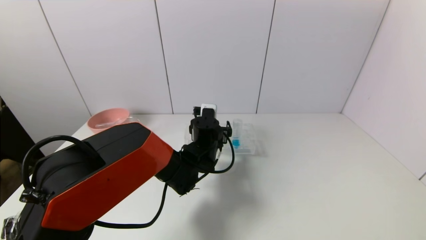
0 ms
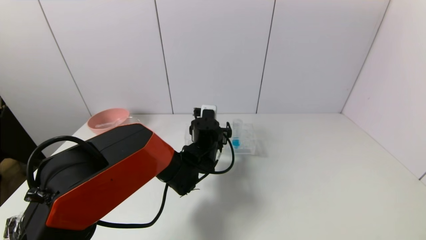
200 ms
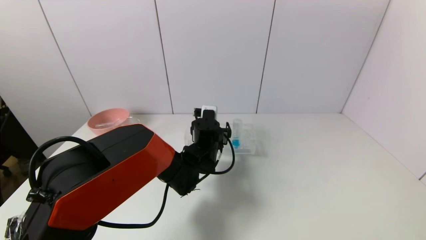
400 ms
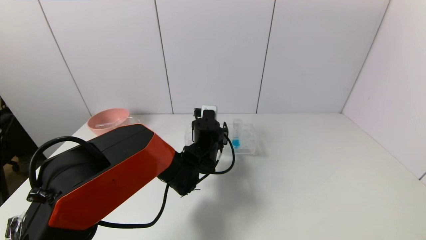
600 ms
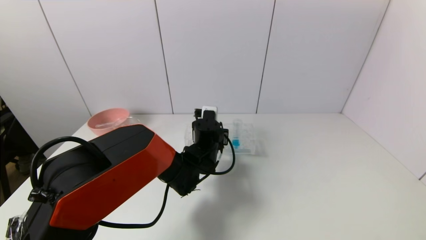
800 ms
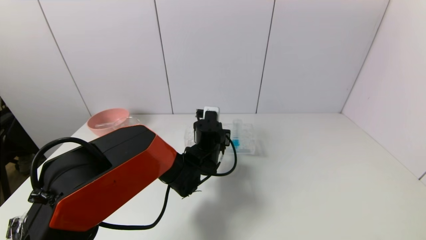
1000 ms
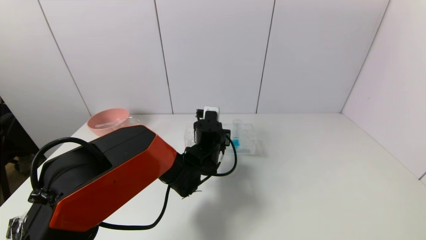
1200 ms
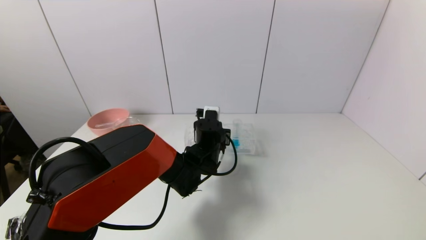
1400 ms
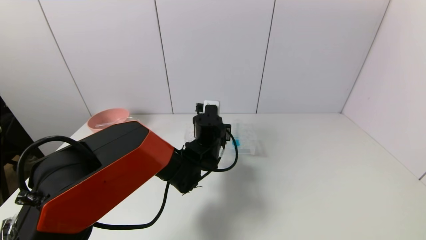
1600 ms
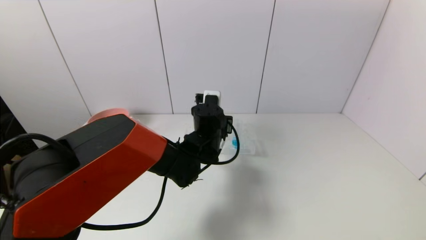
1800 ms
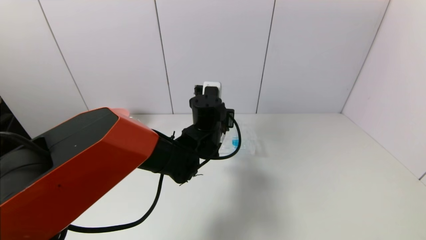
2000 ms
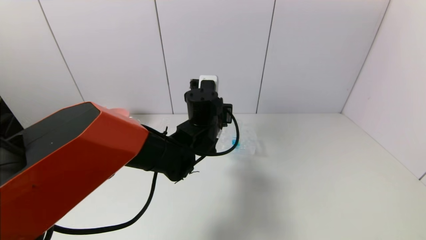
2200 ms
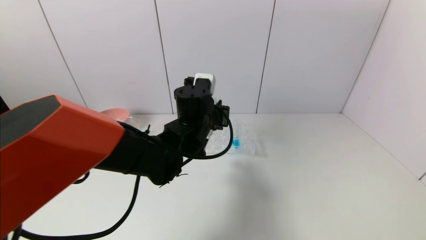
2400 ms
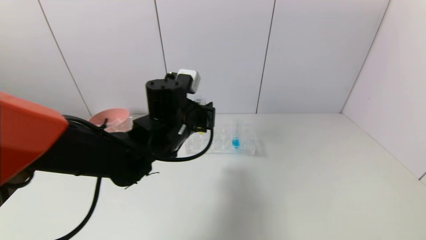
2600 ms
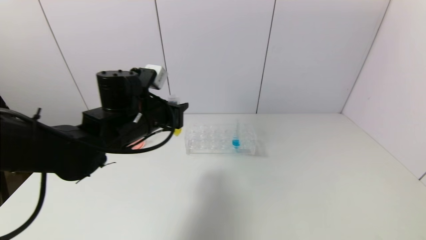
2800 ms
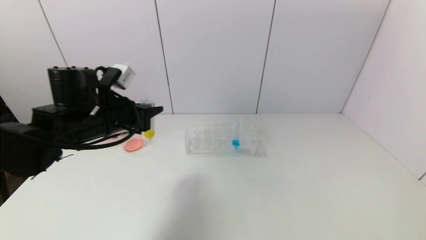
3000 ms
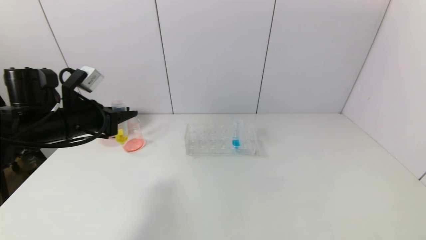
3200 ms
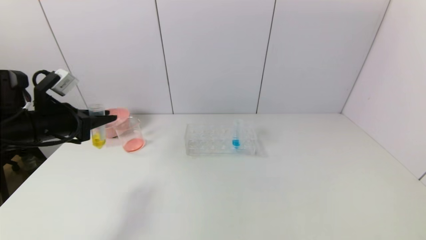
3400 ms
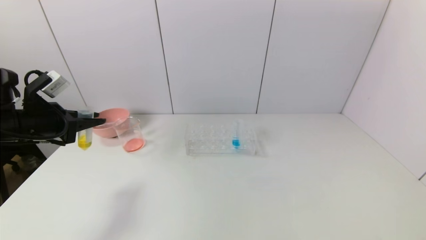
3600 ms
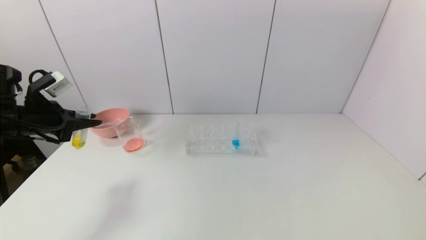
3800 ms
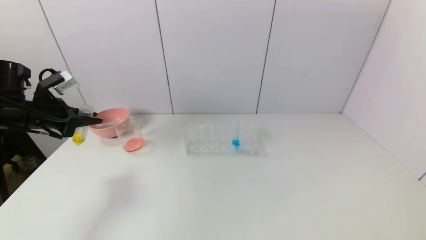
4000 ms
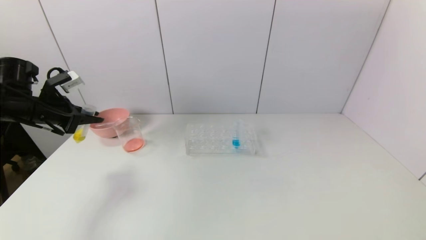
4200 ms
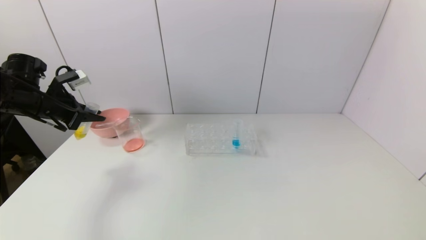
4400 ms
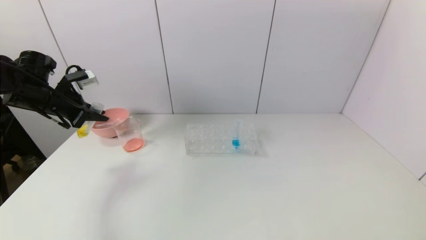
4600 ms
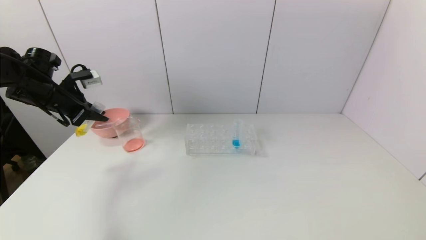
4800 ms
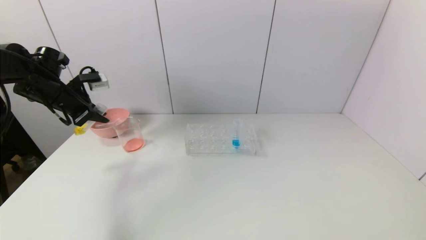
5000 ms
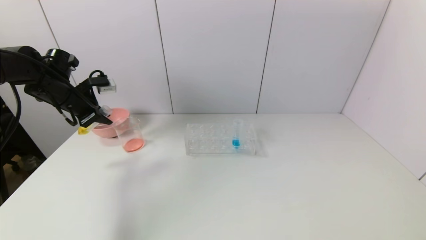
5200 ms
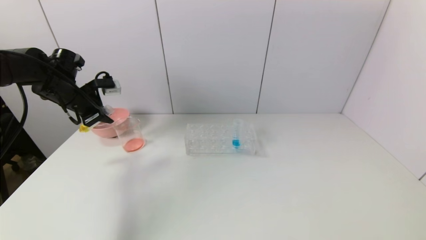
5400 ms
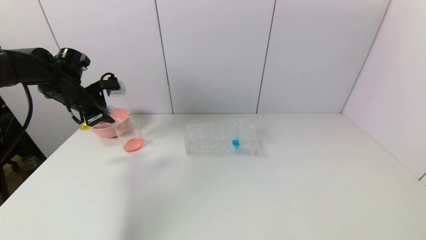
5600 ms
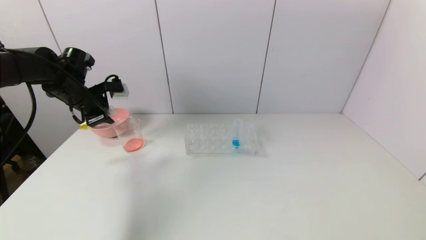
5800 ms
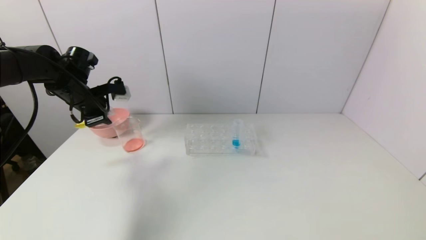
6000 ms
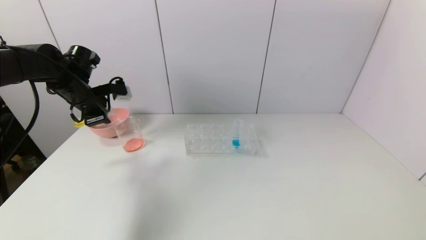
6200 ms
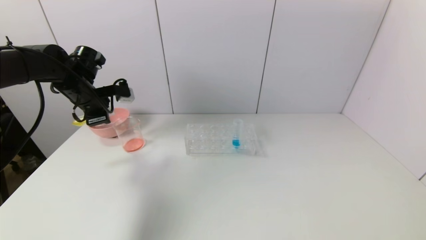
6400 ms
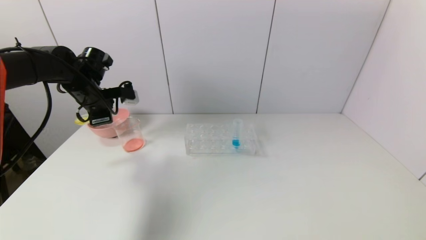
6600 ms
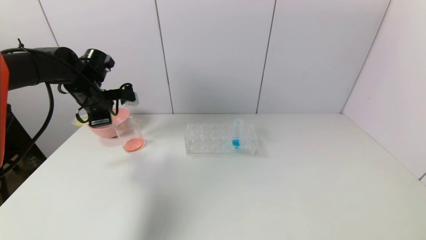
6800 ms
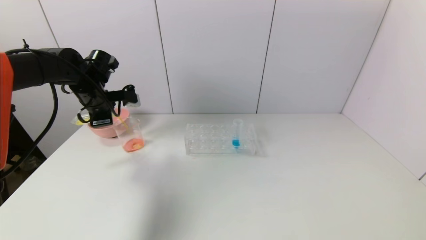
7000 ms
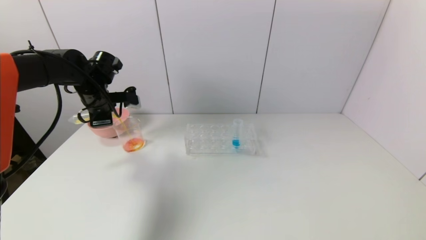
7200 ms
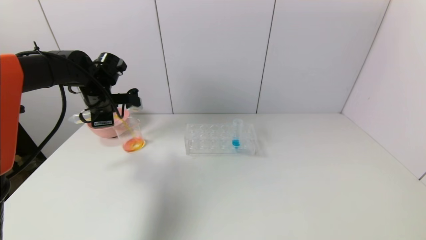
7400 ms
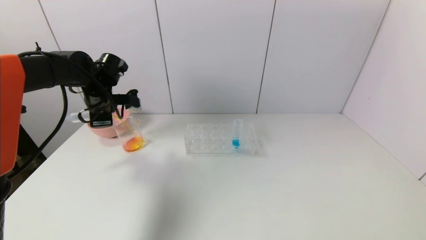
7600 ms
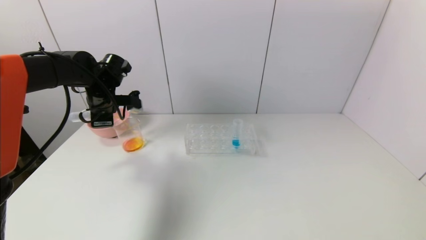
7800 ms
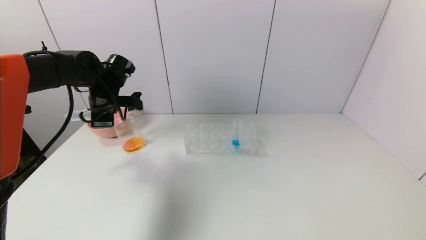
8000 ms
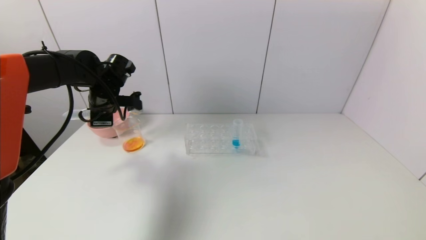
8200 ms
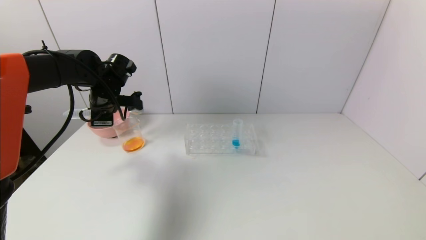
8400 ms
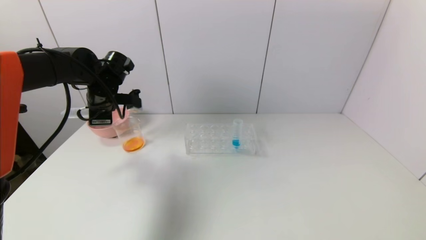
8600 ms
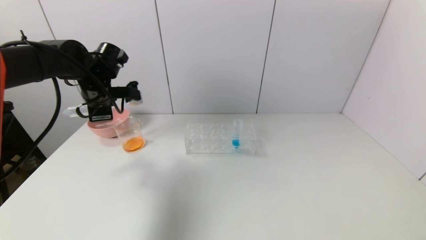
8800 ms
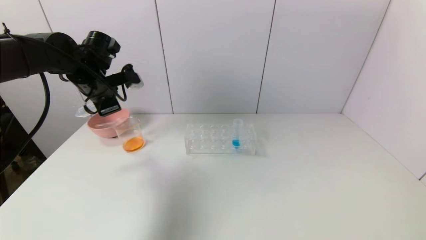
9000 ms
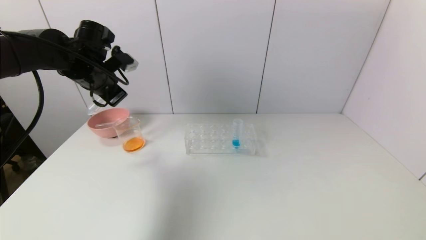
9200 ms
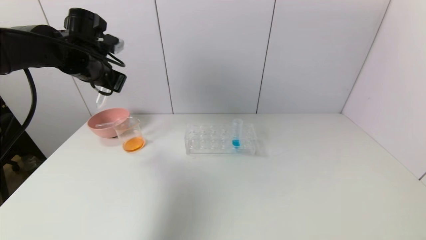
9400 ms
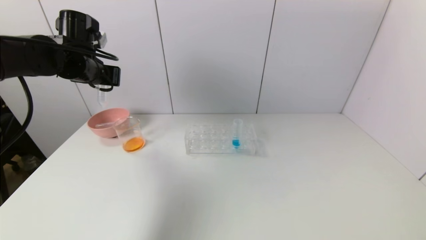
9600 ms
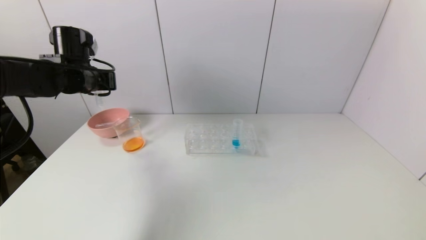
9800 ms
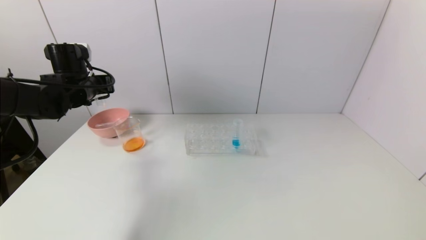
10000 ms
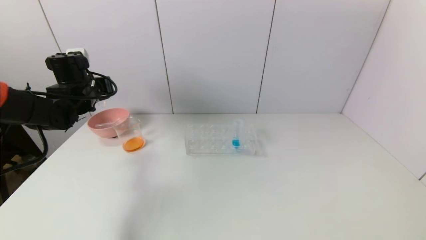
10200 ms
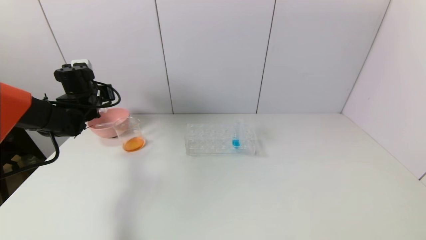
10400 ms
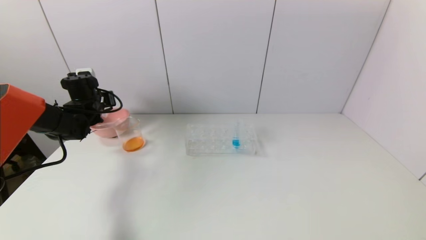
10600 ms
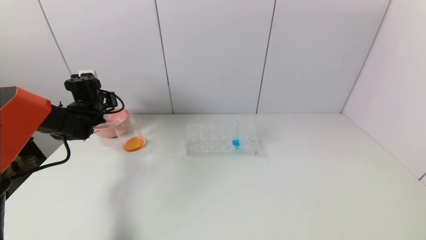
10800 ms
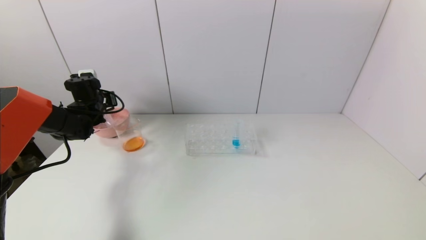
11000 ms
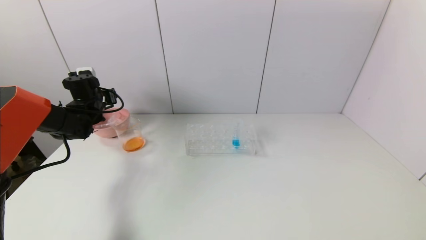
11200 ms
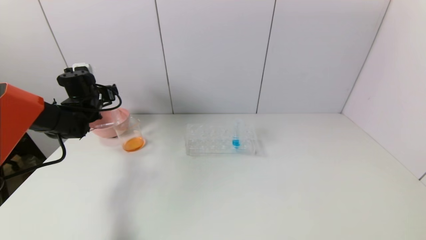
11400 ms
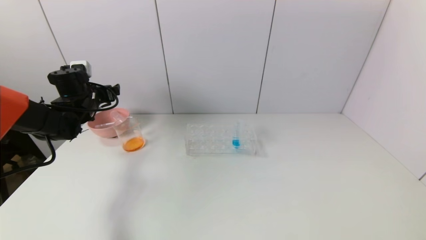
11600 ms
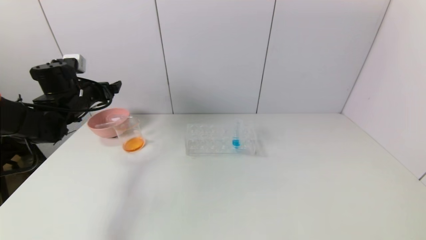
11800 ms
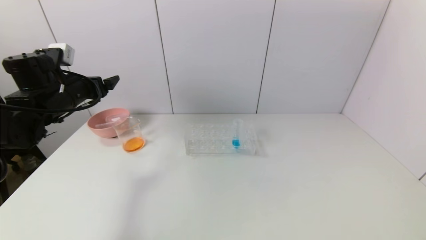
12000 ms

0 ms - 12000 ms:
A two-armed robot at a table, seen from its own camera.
Task of the whole recording: pick up the test tube with yellow pigment and the test tube with red pigment by grippers and pour them into the beaker.
Step, 1200 ms - 8200 ms: Pour the yellow reagent into the graduated cylinder with the left gripper.
Step, 8400 ms - 11200 ms: Place the test tube into the pink bowl with the left gripper.
0 ms - 1600 ms: The left gripper closes up.
1600 ms - 3000 ms: The left gripper moves to the left and upward, roughly 25 cm.
3000 ms - 4400 ms: The left gripper moves to the left, approximately 15 cm.
4400 ms - 6000 ms: The left gripper is displaced to the right by approximately 5 cm.
6000 ms - 7600 ms: The left gripper is displaced to the right by approximately 5 cm.
7600 ms - 9000 ms: The left gripper changes place by approximately 5 cm.
9000 ms - 10400 ms: The left gripper goes about 10 cm downward and to the left.
10400 ms - 12000 ms: The left gripper heads backward and upward, covering some 10 cm, and opens its fingers.

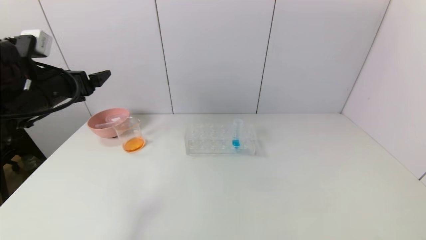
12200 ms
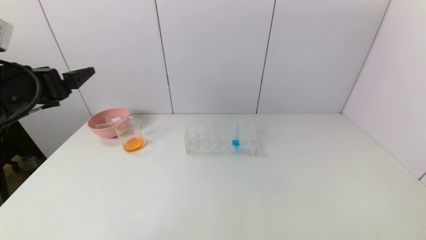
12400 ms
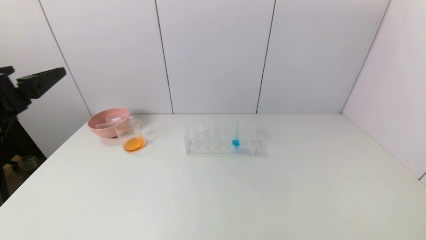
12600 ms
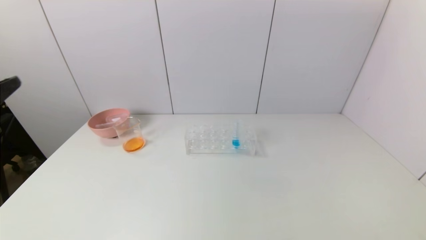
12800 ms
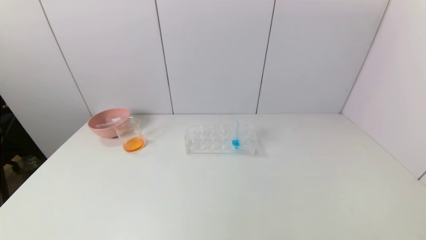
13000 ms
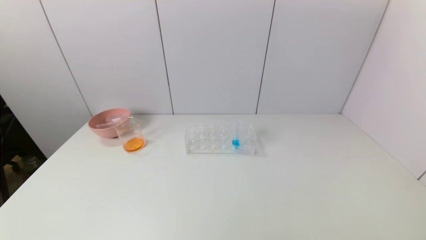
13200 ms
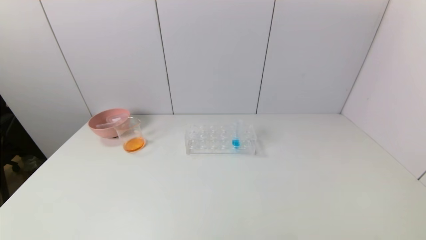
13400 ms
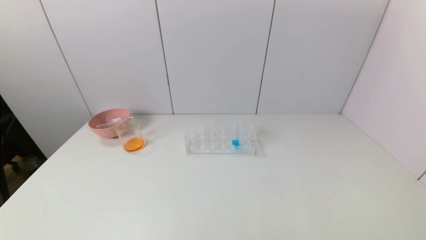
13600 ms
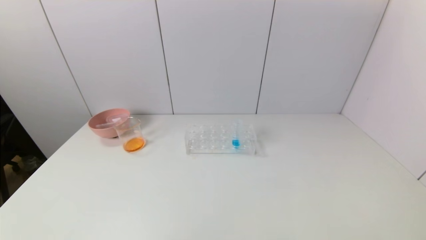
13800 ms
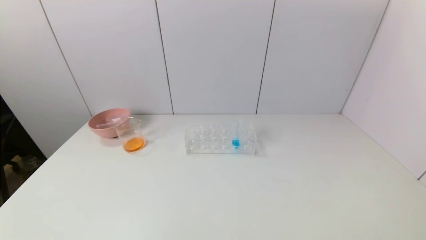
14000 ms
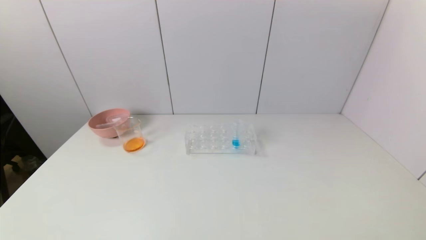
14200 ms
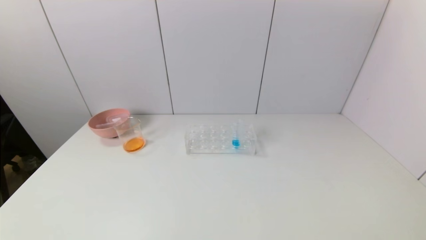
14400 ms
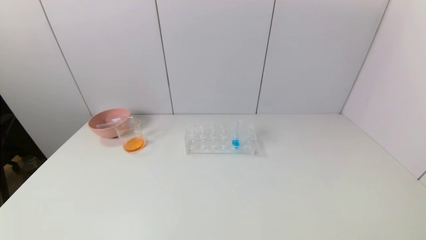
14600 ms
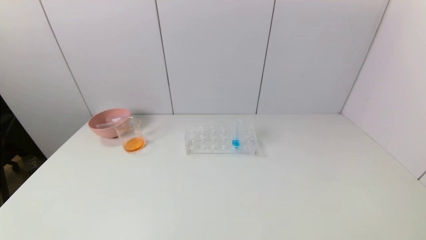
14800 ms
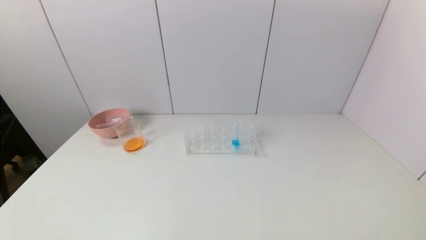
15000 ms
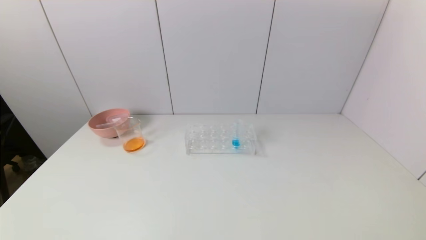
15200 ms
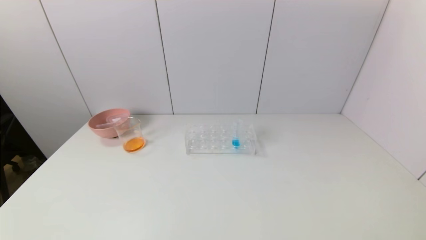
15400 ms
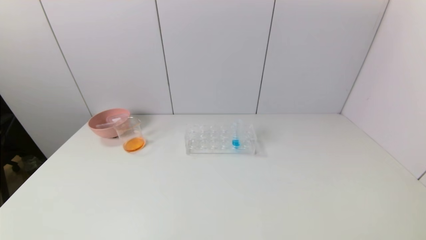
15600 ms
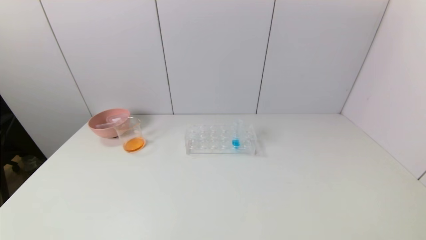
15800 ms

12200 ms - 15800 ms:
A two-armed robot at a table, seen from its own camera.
Task of the whole recording: pick up the test tube with yellow pigment and the test tube with red pigment by grippers and pour them into the beaker.
12200 ms - 14000 ms: The left gripper shifts about 35 cm backward and downward.

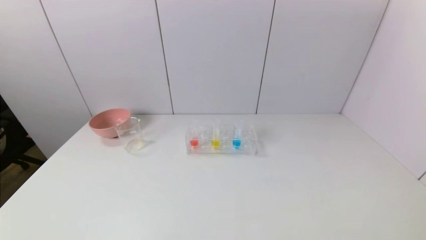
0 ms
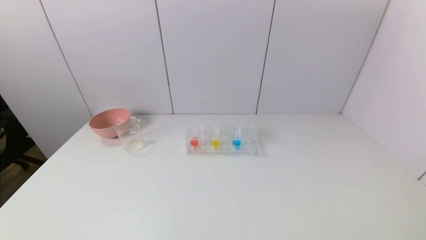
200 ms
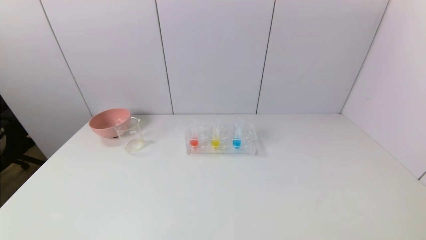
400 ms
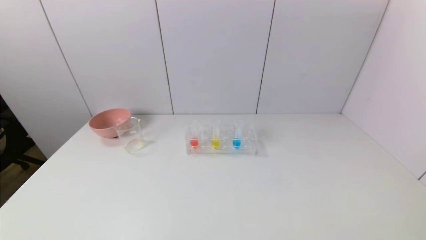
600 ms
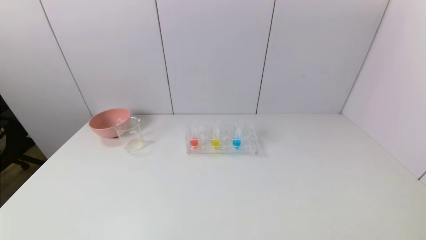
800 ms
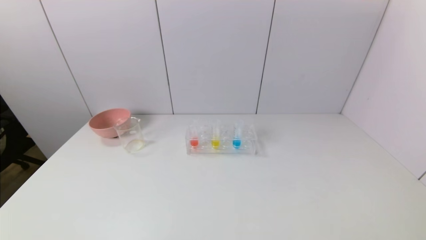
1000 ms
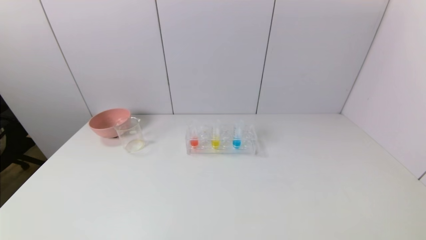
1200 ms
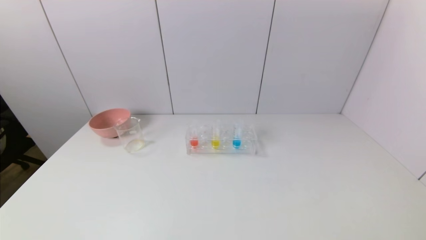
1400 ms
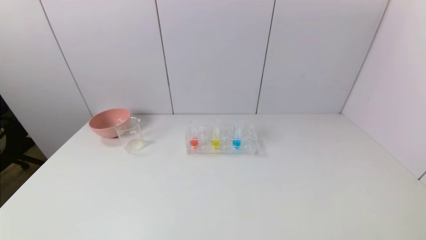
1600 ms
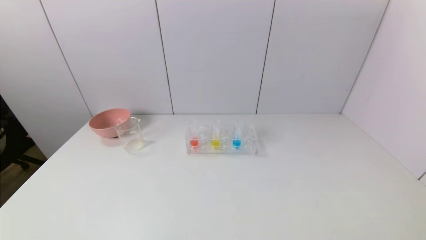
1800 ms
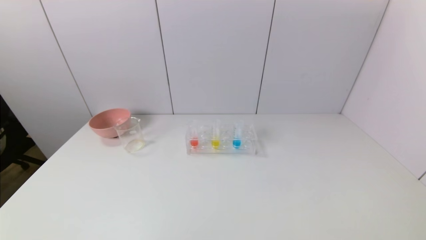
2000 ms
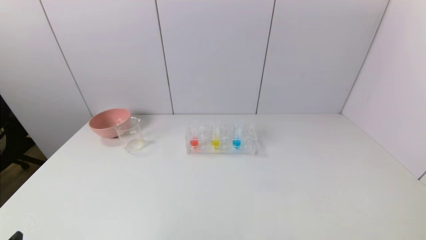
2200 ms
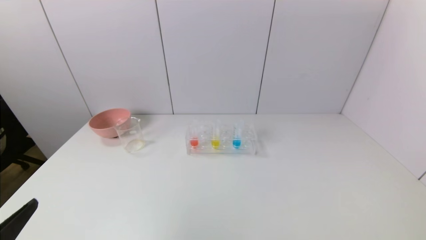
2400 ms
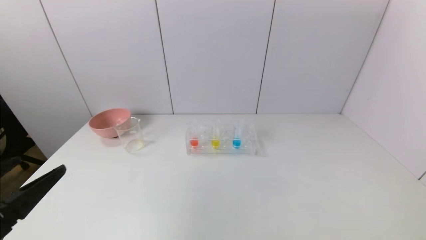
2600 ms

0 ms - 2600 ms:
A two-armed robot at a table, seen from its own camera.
Task of the whole recording: pick up the test tube with yellow pigment and the test tube with red pigment by grippers and pour them into the beaker.
0 ms - 1200 ms: Both grippers stay put.
1200 ms - 2600 ms: The left gripper shifts about 15 cm upward and forward.
